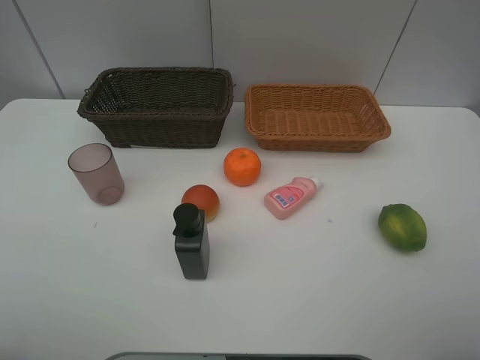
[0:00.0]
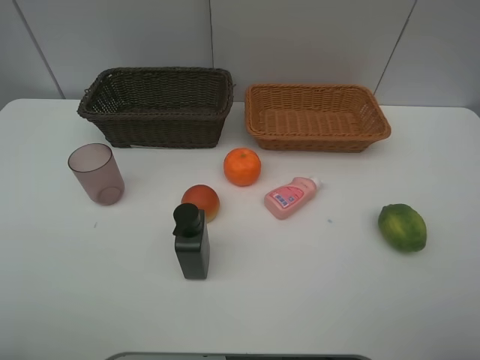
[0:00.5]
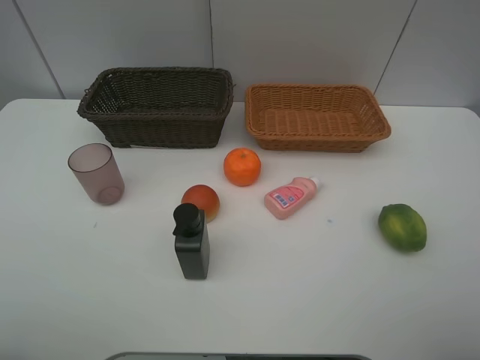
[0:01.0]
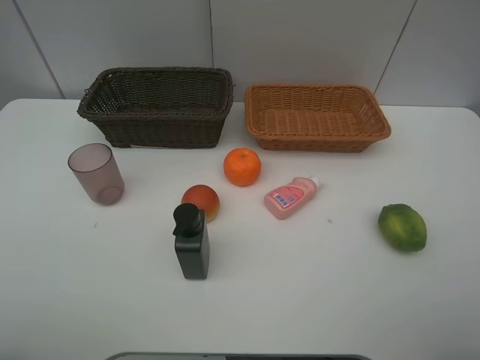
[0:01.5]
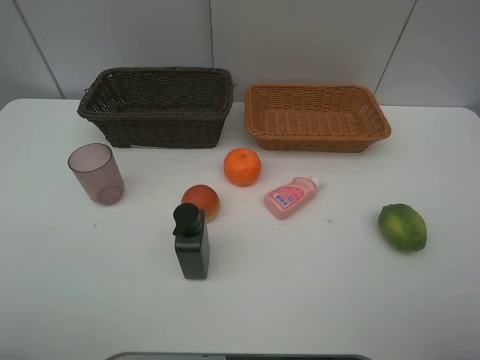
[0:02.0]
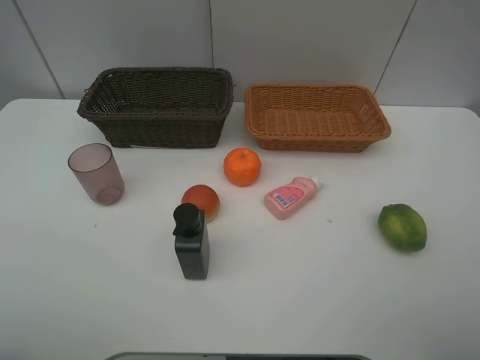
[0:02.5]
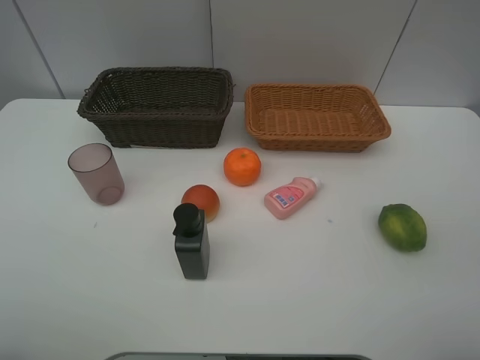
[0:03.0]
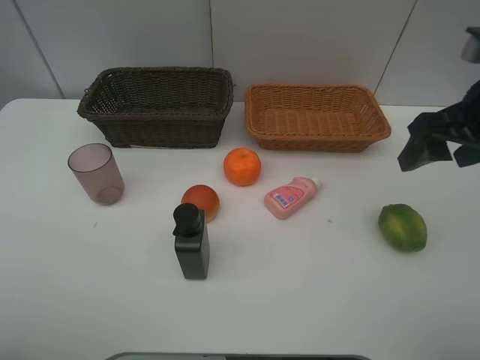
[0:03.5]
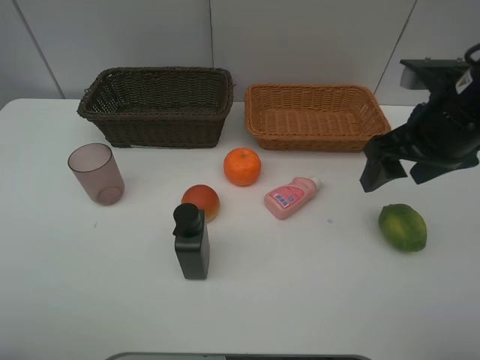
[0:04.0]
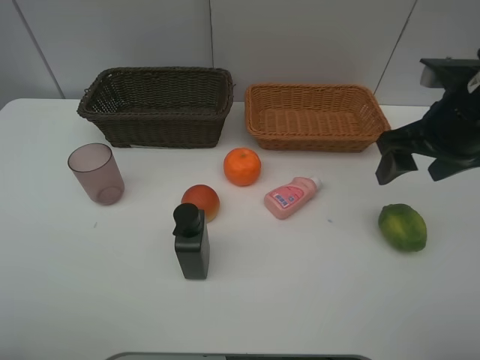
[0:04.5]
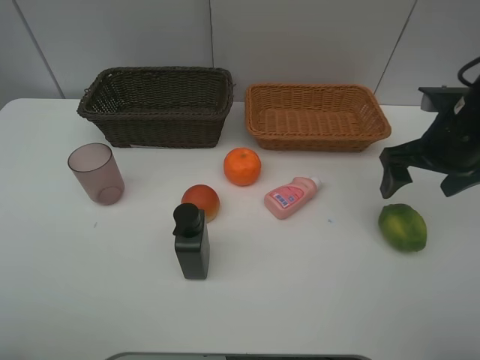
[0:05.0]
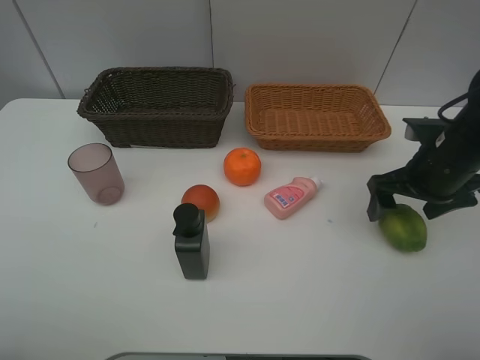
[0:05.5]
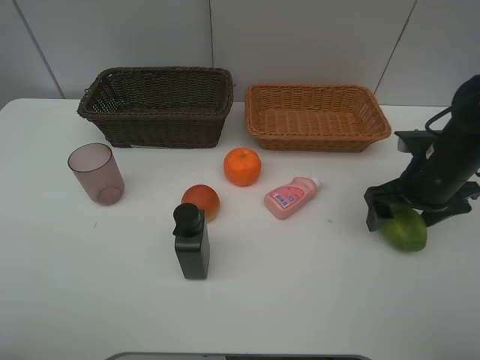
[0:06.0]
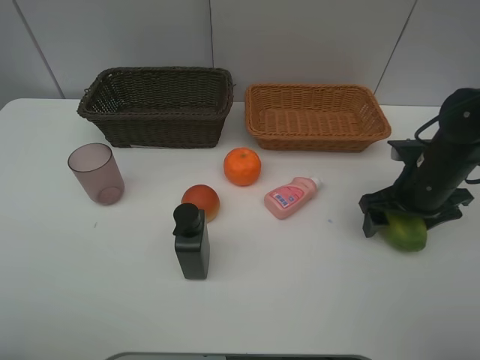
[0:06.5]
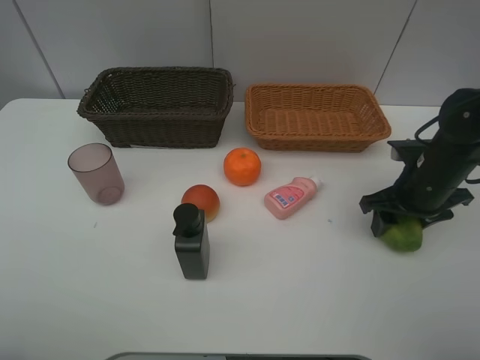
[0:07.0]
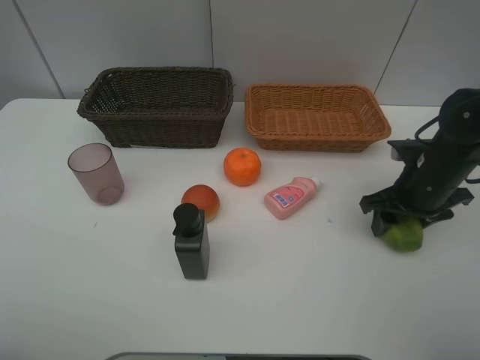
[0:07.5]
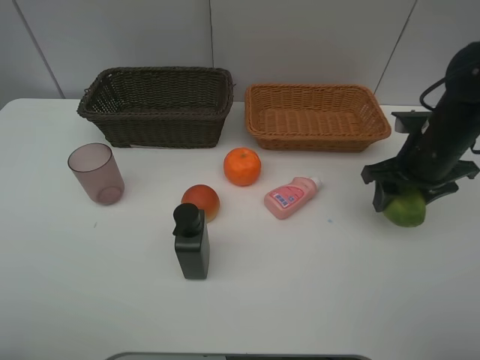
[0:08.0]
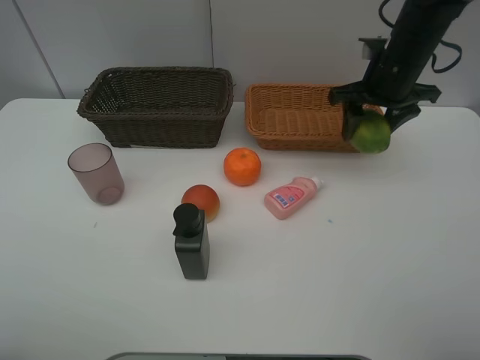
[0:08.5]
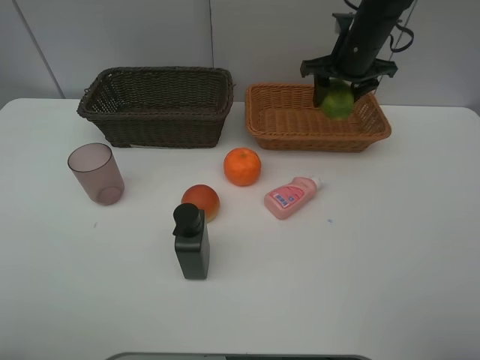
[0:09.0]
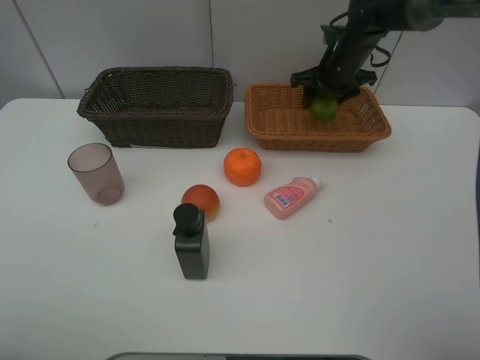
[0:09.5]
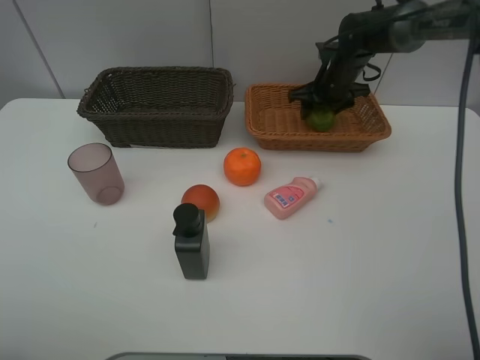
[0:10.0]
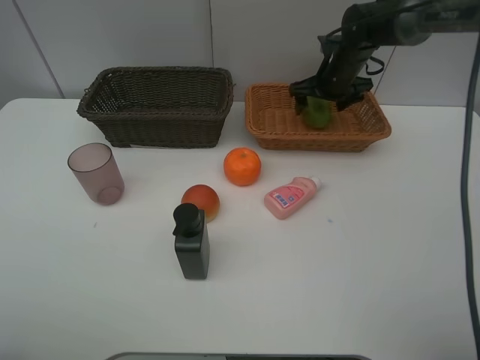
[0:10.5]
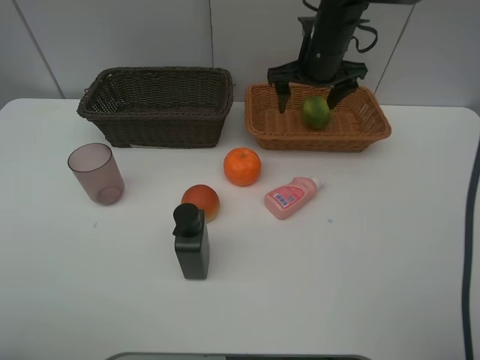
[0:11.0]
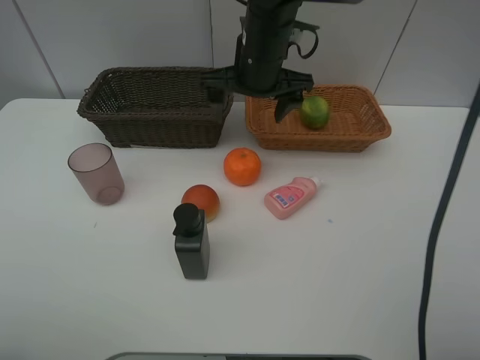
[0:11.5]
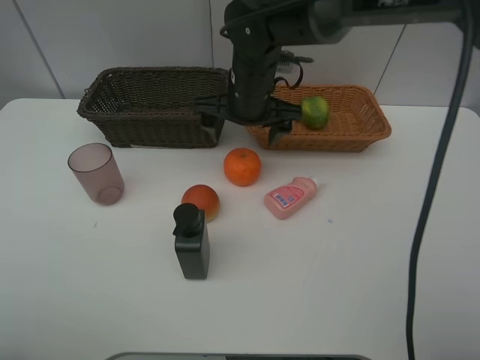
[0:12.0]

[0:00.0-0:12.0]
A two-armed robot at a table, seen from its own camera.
Task of the whole recording: place multiple objects separately in different baskets.
0:00.0 to 0:02.0: Both grippers stay put.
0:02.0 to 0:04.0: The right gripper shifts roughly 25 cm forward.
0:04.0 to 0:06.0: The right gripper travels downward by roughly 10 cm, and opens its fingers.
0:06.0 to 0:08.0: The right gripper closes.
0:08.0 to 0:10.0: The right gripper heads forward, covering some 20 cm.
0:10.0 to 0:12.0: The right gripper shifts some 20 cm to the left and backward, and opens up.

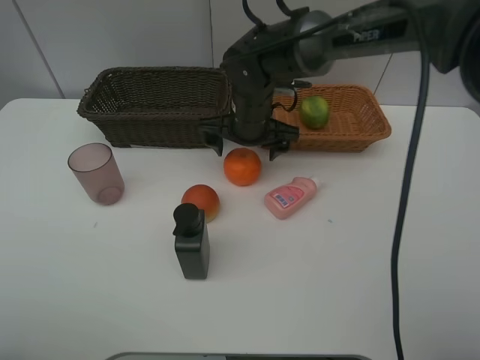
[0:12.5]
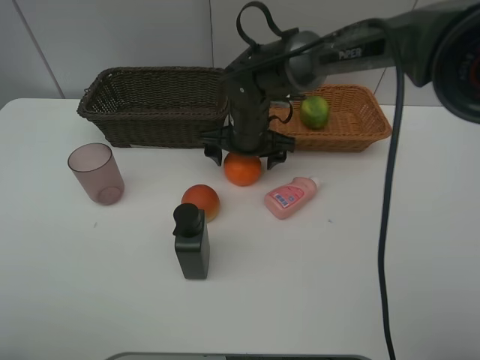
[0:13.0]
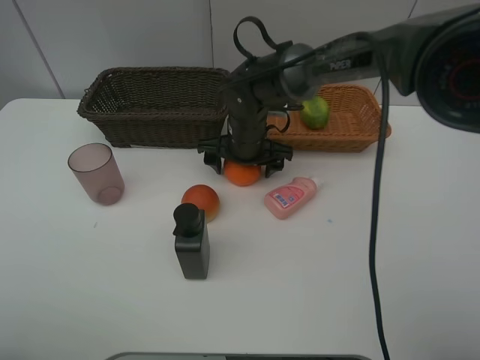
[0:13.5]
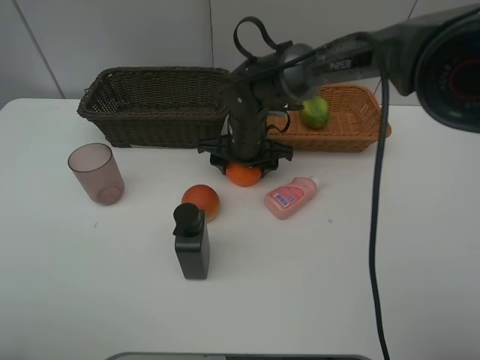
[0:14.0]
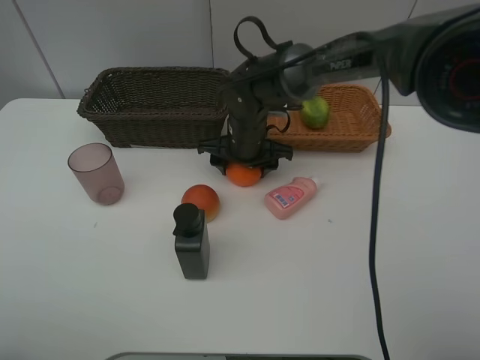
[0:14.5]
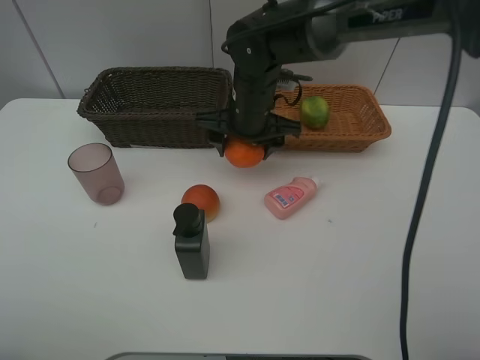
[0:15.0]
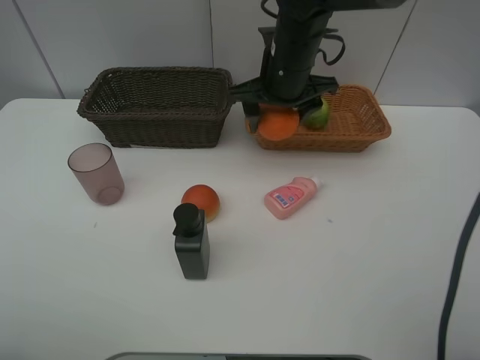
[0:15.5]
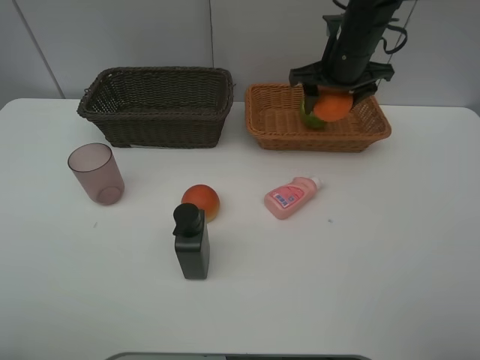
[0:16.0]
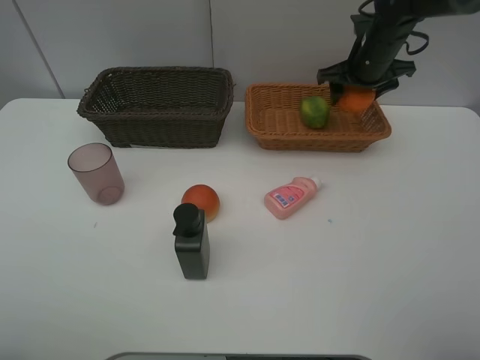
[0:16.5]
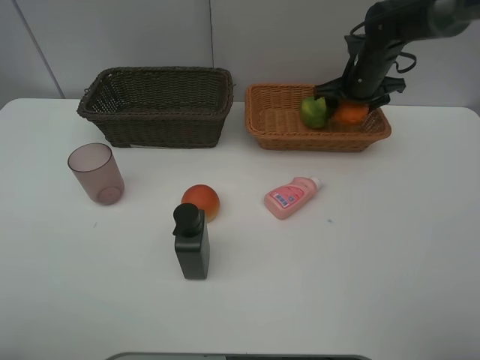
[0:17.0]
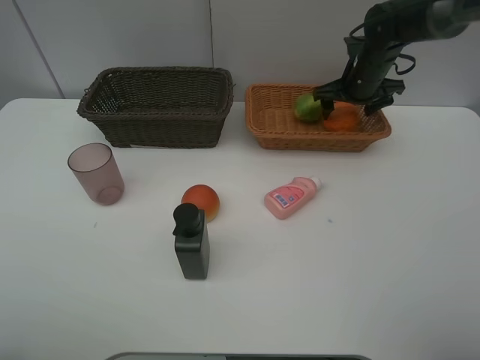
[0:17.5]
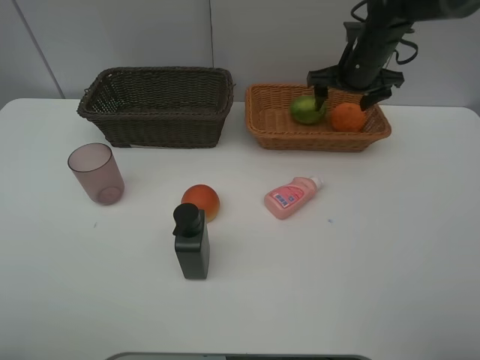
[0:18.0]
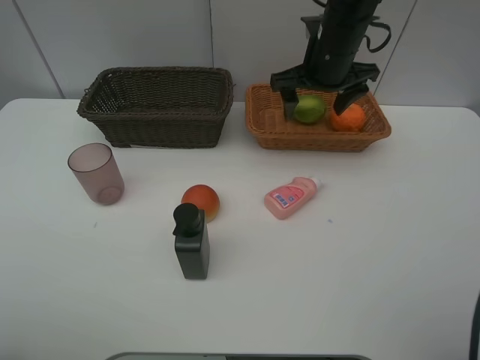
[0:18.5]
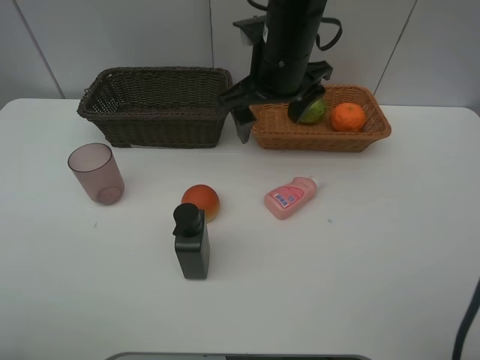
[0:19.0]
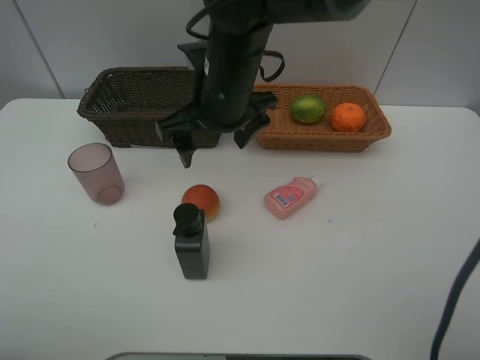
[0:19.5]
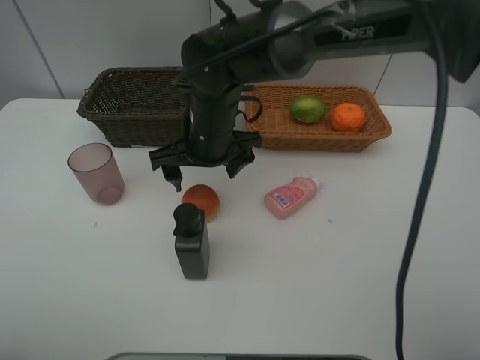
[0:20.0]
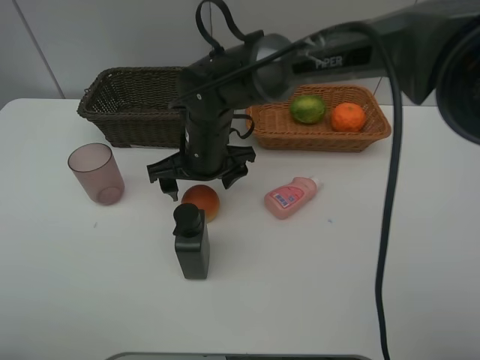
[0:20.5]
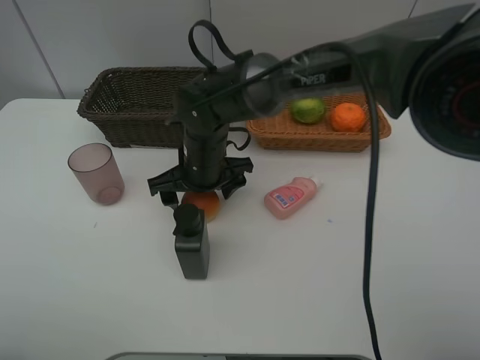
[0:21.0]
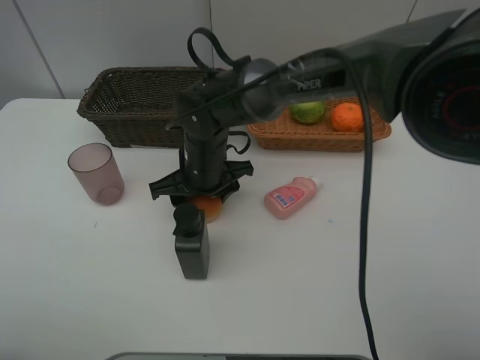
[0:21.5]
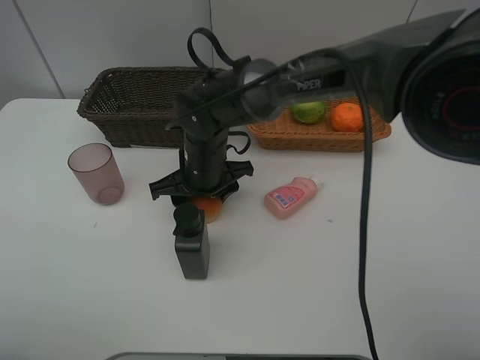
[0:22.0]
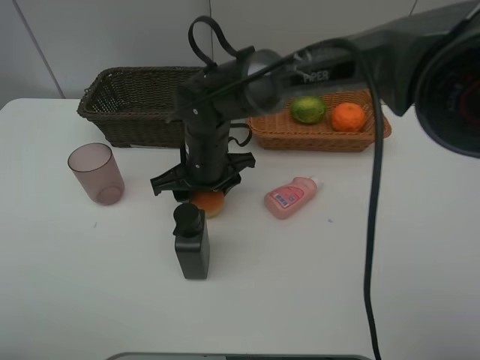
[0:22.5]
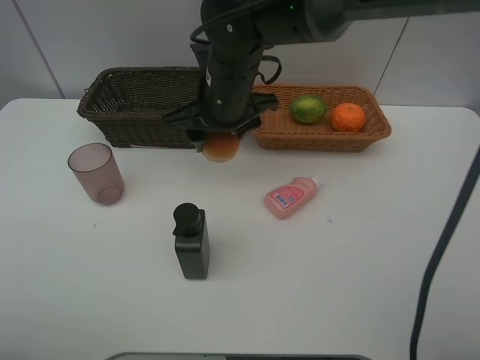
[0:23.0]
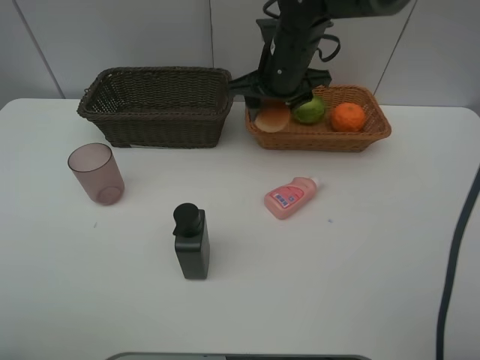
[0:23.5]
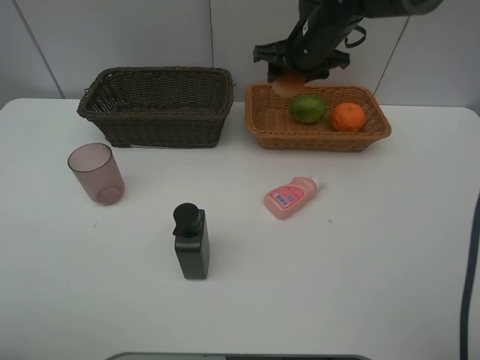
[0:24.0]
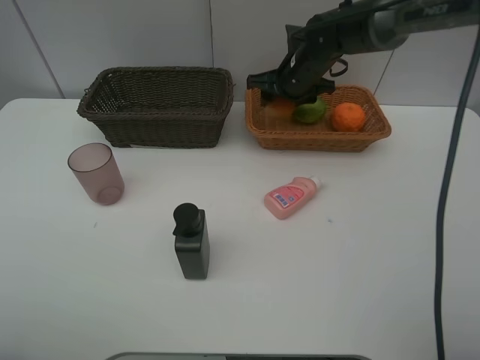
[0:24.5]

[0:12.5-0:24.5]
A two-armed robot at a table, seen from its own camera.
Task of the whole recording: place multiple objects separately in different baskets.
0:12.5 to 0:14.5: The right gripper closes its fingers.
0:14.5 to 0:16.5: The right gripper moves to the right, upward and forward, about 25 cm.
0:16.5 to 0:18.5: The right gripper shifts roughly 10 cm to the left and backward, and opens.
0:18.5 to 0:20.5: The right gripper moves to the left, downward and backward, approximately 20 cm.
0:20.5 to 0:22.5: The right gripper closes.
0:22.5 to 0:24.5: The right gripper goes roughly 20 cm to the right and forward.

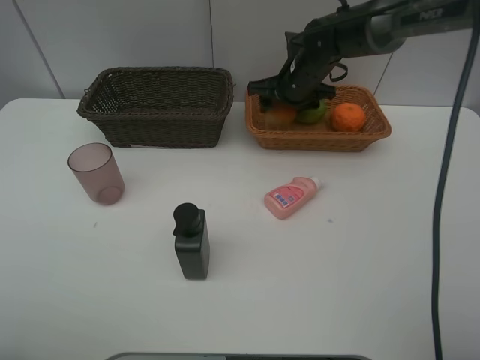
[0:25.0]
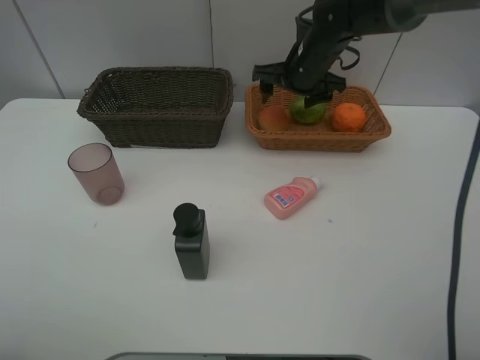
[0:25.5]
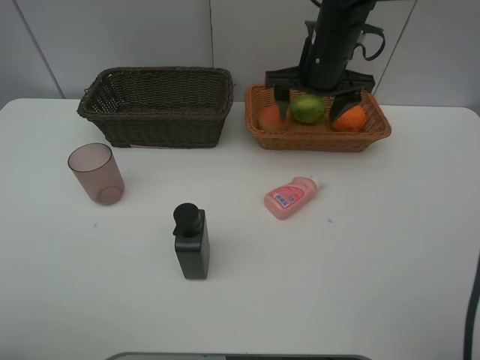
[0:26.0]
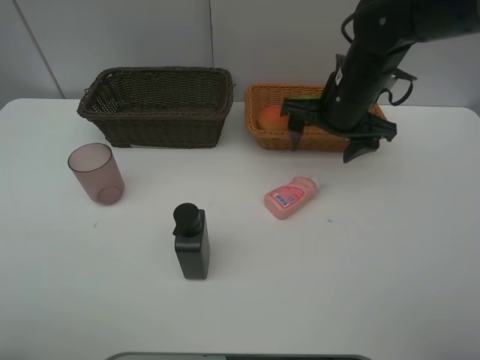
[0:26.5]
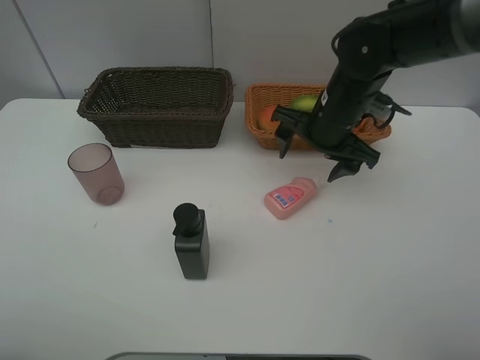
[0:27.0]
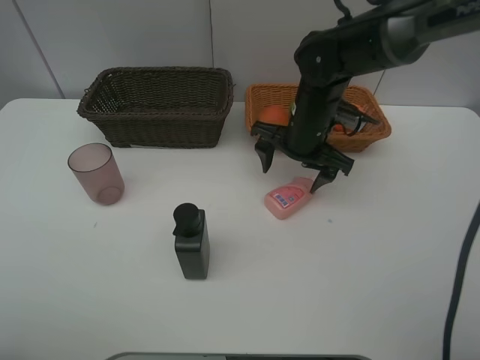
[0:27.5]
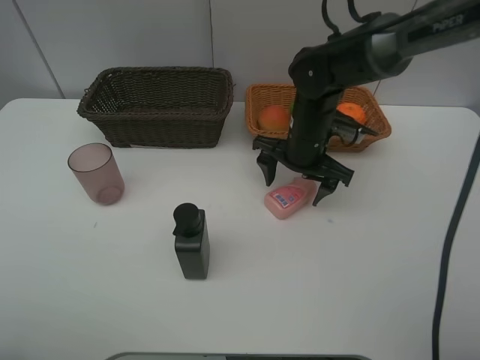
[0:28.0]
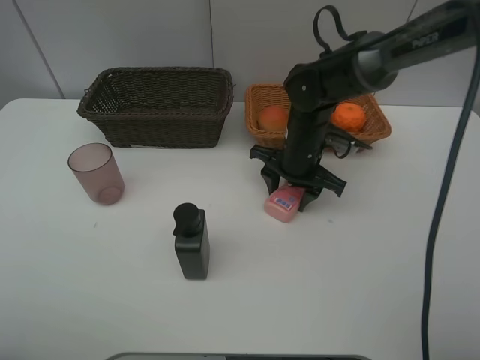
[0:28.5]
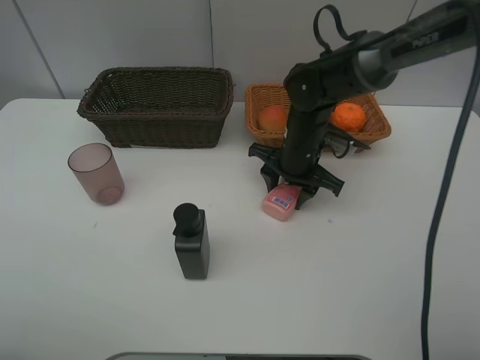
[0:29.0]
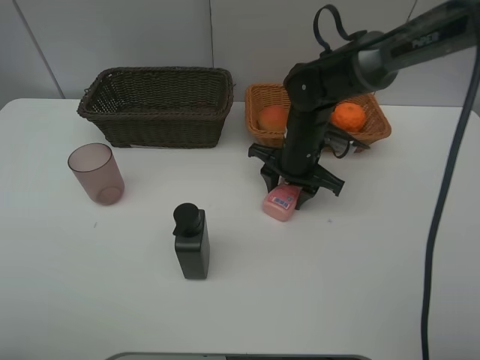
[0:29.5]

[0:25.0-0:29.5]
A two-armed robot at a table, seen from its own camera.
Task of the whole recording: place multiple objects separately in different baskets.
0:25.0 to 0:27.0: The right gripper shifts roughly 15 cm backward.
0:27.0 to 0:29.5: The right gripper goes roughly 5 cm downward, and closes.
